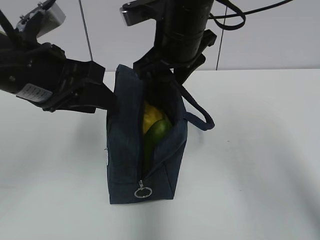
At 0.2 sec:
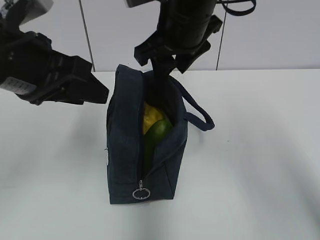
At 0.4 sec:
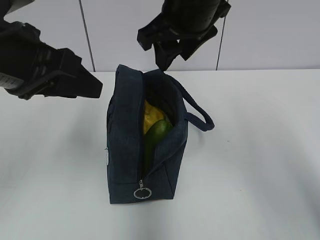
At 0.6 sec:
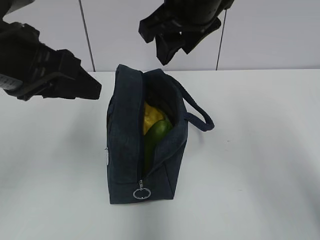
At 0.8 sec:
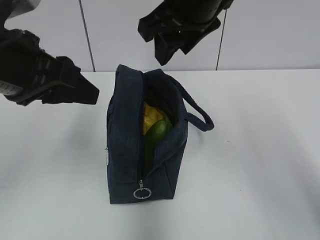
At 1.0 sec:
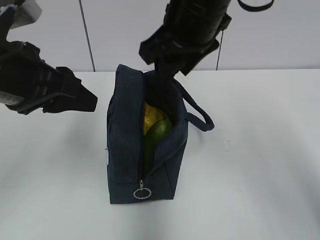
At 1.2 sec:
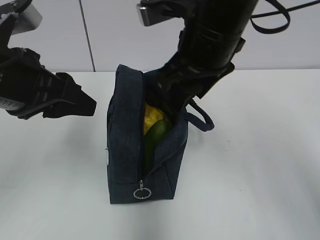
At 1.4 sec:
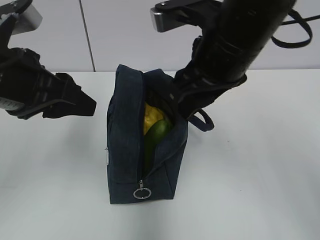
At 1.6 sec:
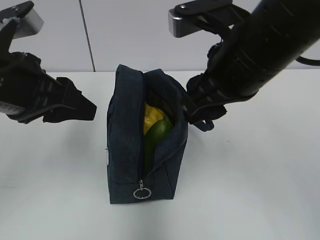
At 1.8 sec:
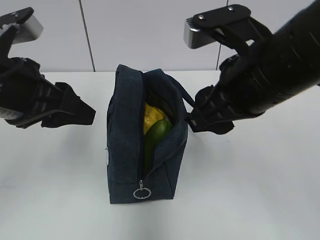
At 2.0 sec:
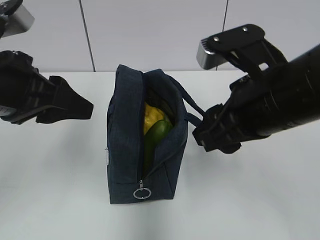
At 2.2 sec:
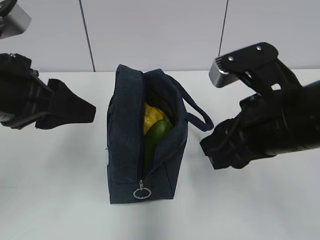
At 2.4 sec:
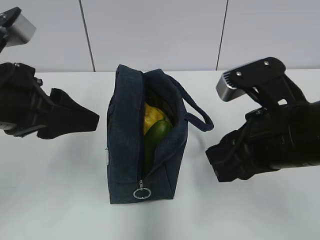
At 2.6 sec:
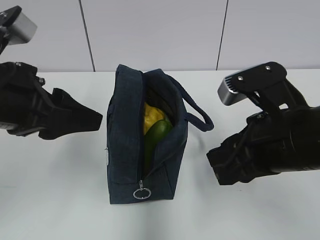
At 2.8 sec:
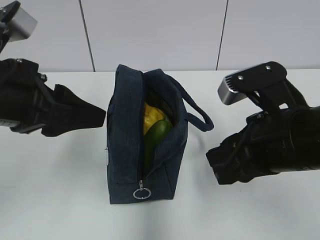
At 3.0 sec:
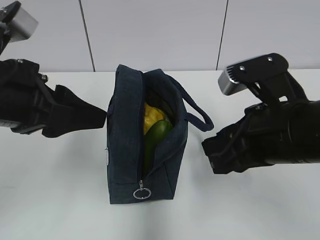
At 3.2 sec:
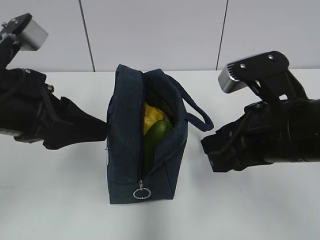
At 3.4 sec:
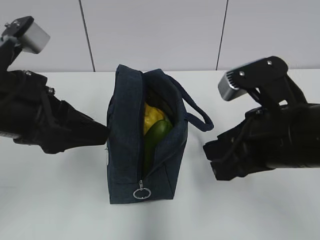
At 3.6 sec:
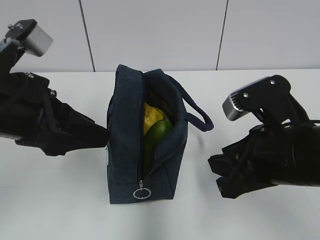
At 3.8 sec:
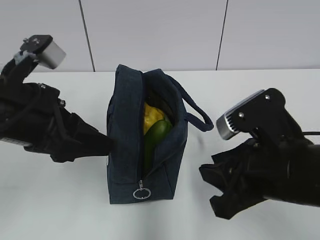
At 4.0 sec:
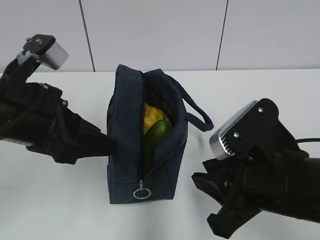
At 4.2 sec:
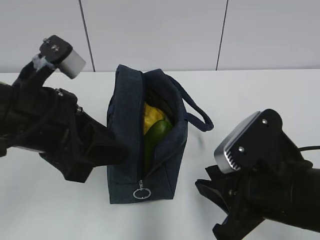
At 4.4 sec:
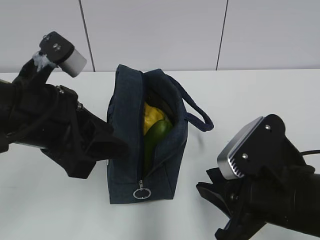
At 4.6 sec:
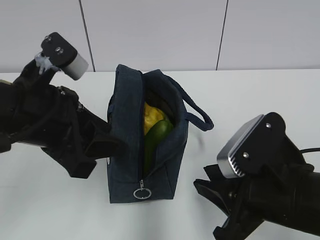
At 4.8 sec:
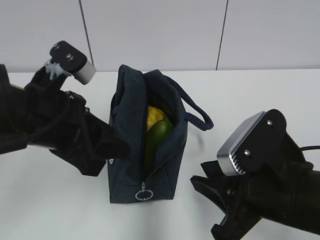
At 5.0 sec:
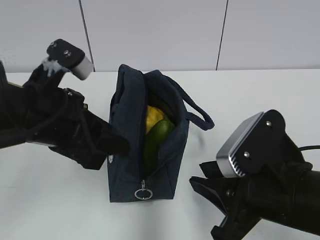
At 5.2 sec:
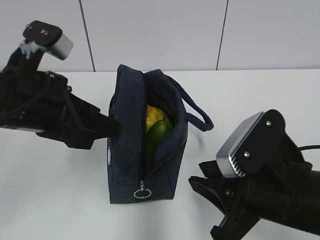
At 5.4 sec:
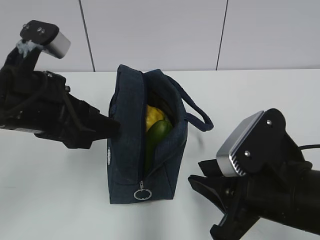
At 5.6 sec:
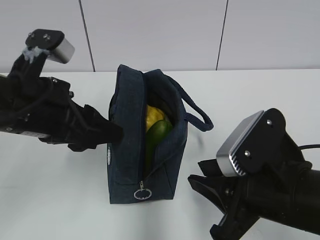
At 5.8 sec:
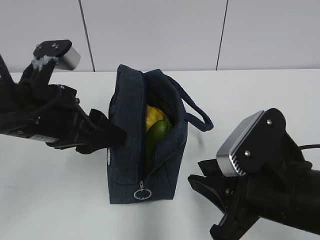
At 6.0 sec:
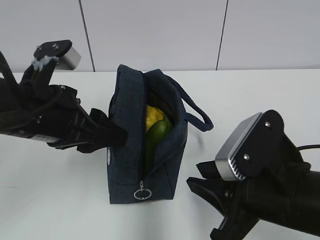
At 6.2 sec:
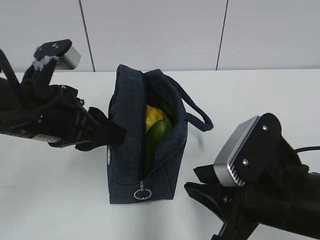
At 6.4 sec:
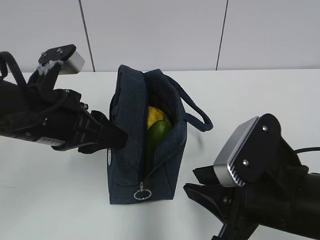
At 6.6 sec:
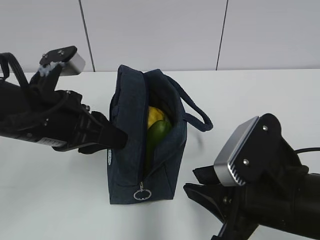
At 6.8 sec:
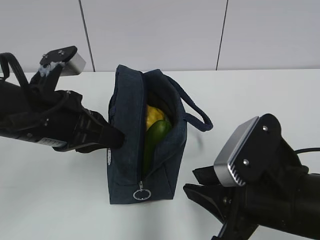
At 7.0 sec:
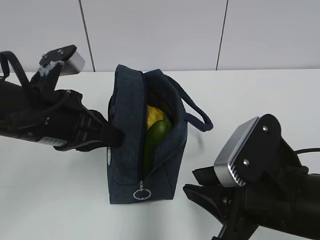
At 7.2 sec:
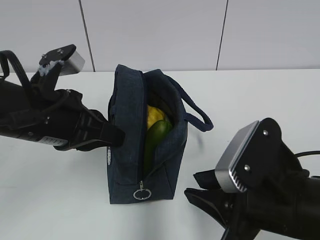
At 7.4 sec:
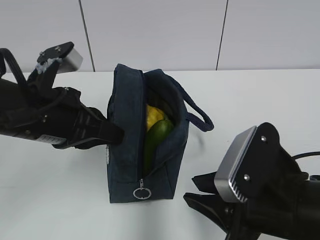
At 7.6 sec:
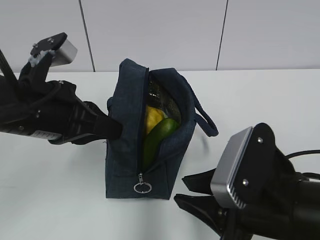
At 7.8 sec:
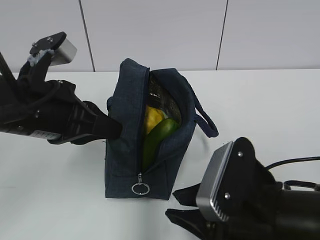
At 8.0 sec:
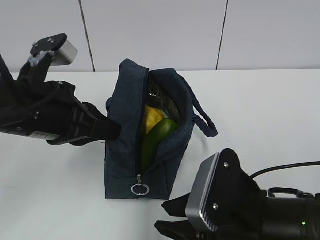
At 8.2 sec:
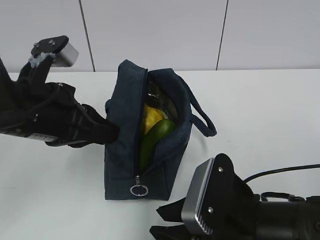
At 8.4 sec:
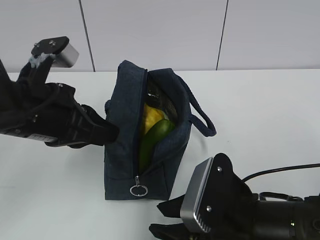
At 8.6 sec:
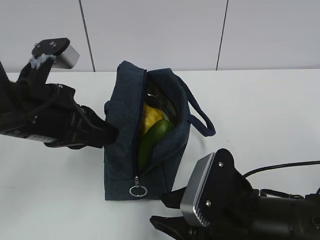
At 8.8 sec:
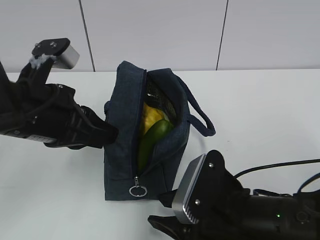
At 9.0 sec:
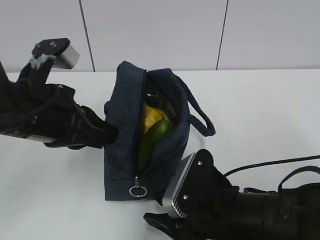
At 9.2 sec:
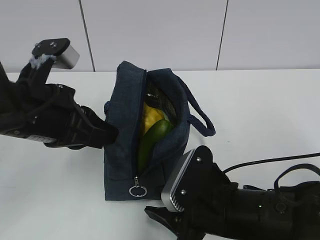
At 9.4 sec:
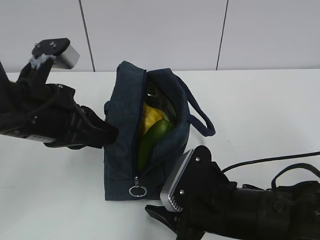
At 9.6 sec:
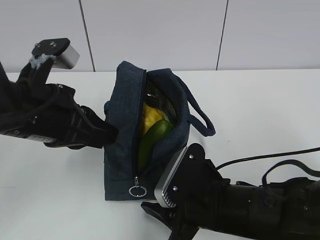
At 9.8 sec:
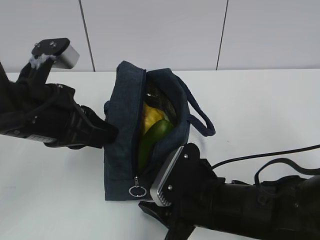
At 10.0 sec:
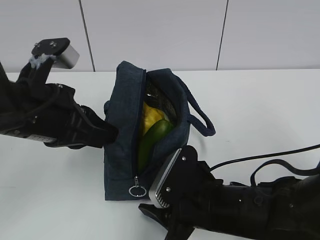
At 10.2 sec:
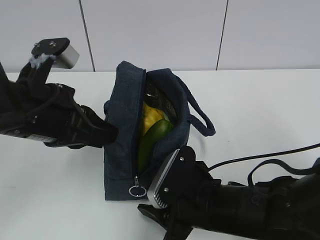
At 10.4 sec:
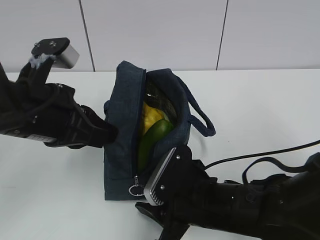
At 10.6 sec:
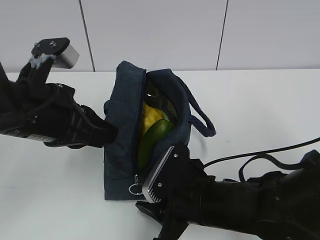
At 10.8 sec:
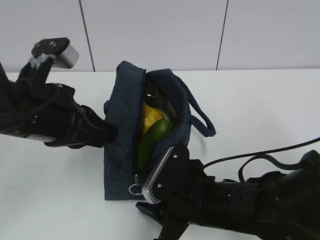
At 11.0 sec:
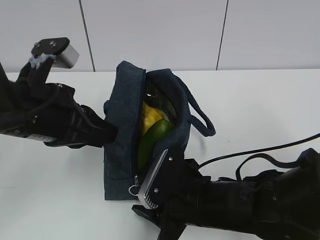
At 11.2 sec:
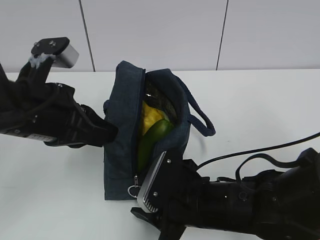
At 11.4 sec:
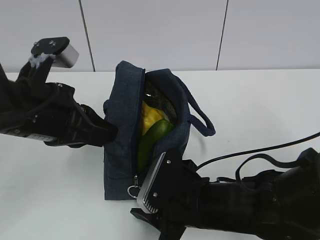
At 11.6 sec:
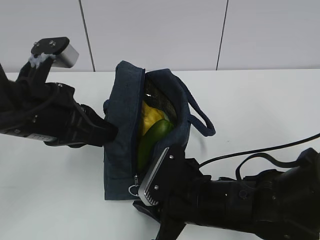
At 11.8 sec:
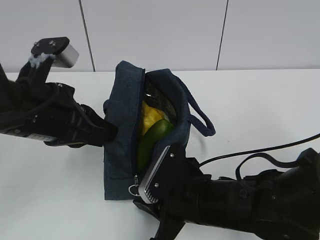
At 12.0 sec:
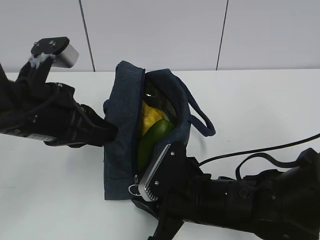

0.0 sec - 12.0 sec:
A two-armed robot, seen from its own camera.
0.0 sec - 1.6 sec: The right gripper shifts some 10 cm backward and to the right.
1.6 sec - 3.0 sec: The right gripper moves downward and backward, roughly 10 cm.
3.0 sec - 4.4 sec: The right gripper is displaced downward by roughly 5 cm.
4.4 sec - 6.0 sec: The grippers make only small movements.
6.0 sec - 7.6 sec: The left gripper closes its fingers.
7.6 sec - 9.0 sec: The right gripper heads downward, covering roughly 5 cm.
9.0 sec - 12.0 sec: The grippers stay close to where they were, moving slightly.

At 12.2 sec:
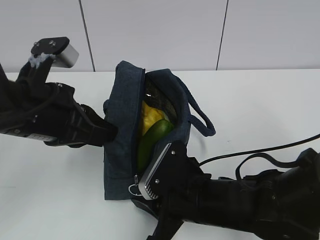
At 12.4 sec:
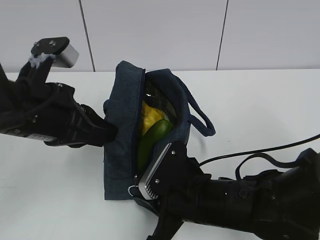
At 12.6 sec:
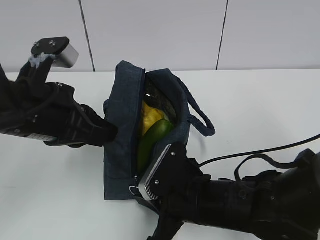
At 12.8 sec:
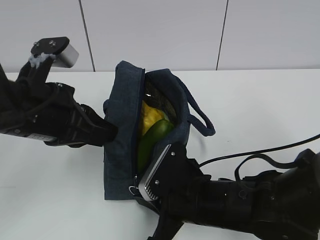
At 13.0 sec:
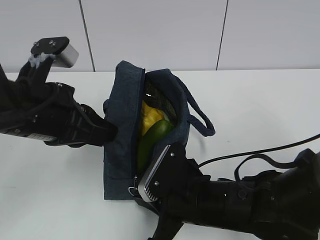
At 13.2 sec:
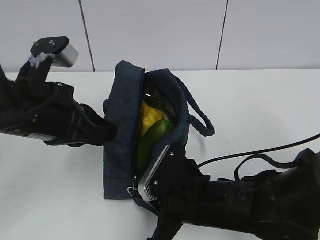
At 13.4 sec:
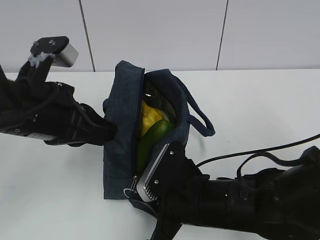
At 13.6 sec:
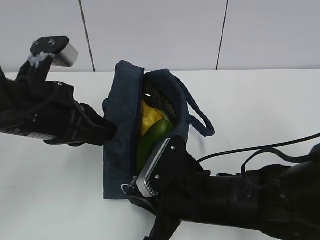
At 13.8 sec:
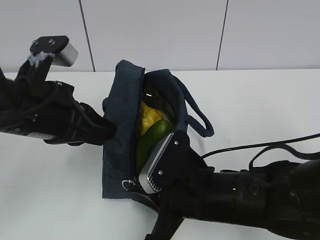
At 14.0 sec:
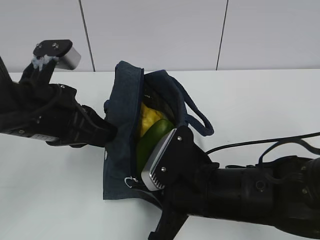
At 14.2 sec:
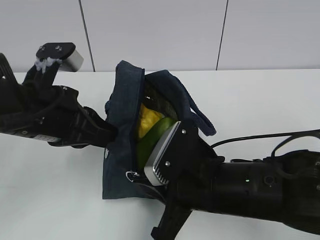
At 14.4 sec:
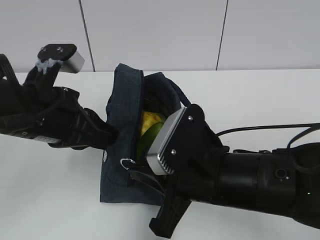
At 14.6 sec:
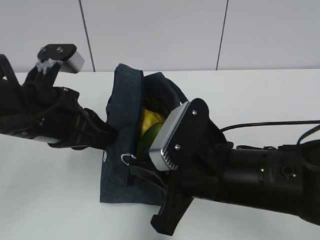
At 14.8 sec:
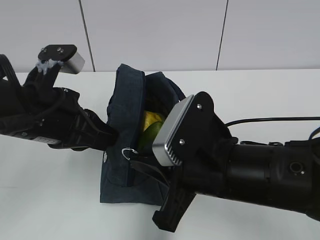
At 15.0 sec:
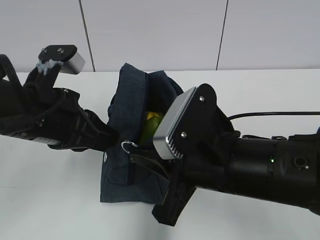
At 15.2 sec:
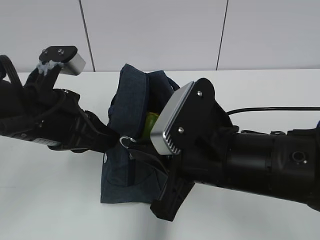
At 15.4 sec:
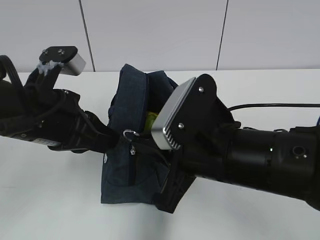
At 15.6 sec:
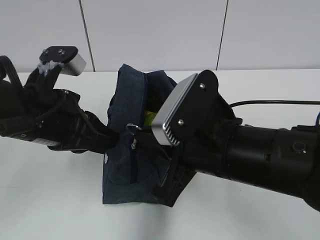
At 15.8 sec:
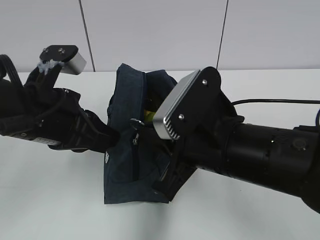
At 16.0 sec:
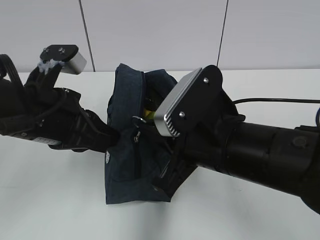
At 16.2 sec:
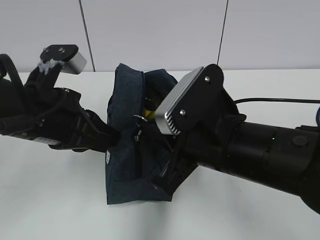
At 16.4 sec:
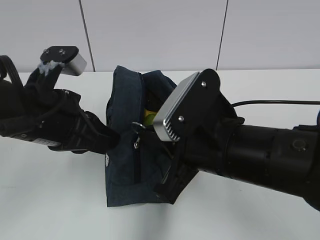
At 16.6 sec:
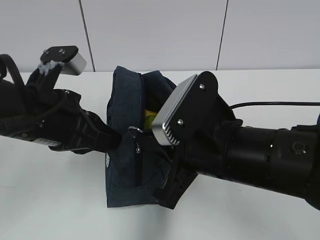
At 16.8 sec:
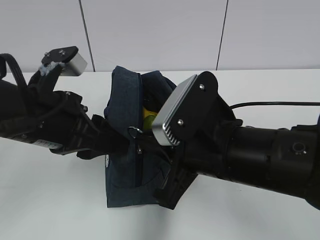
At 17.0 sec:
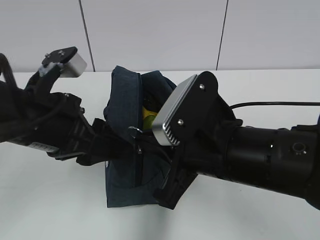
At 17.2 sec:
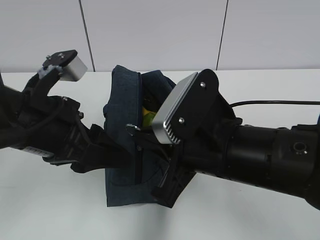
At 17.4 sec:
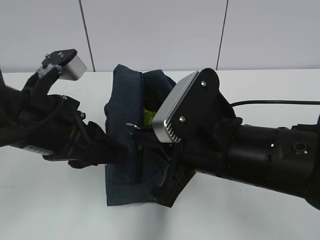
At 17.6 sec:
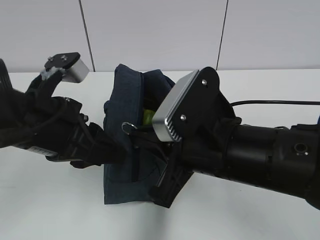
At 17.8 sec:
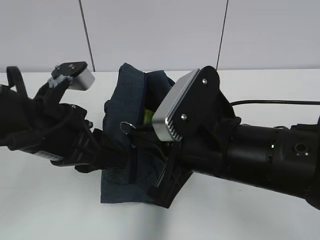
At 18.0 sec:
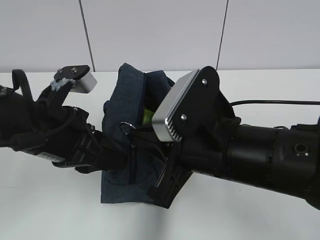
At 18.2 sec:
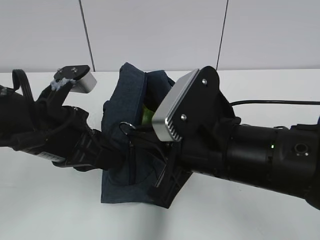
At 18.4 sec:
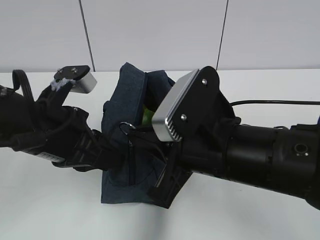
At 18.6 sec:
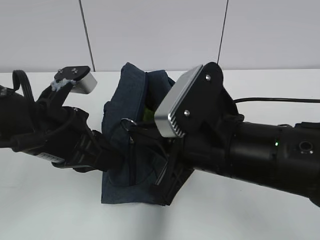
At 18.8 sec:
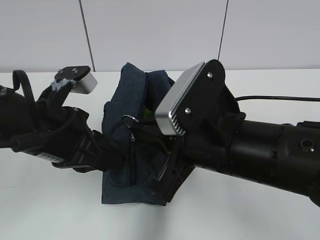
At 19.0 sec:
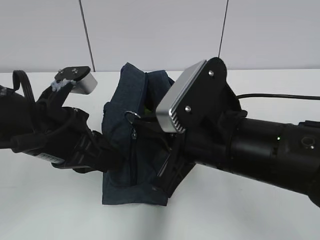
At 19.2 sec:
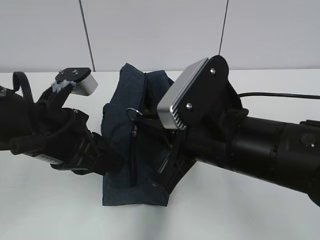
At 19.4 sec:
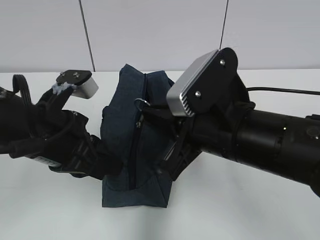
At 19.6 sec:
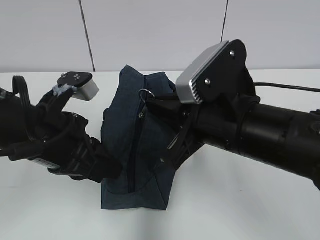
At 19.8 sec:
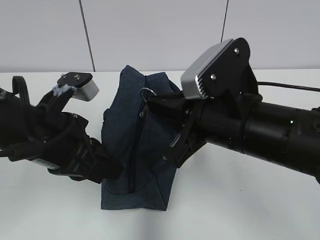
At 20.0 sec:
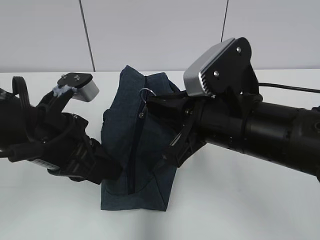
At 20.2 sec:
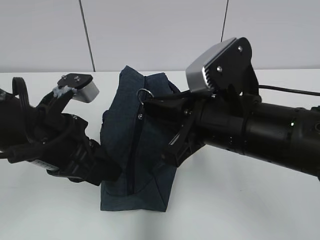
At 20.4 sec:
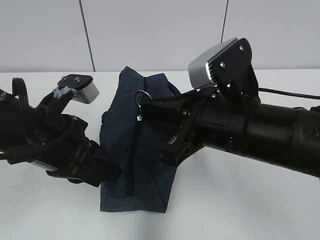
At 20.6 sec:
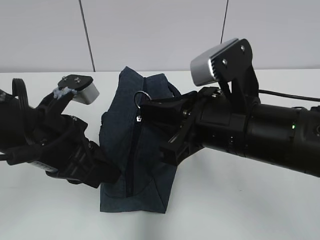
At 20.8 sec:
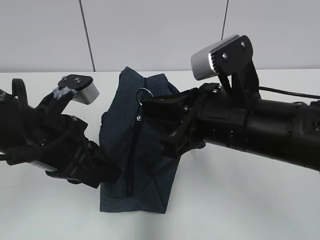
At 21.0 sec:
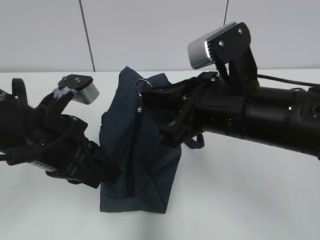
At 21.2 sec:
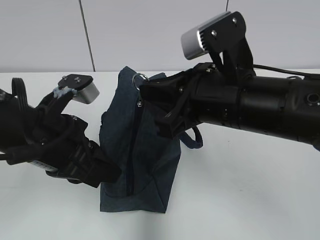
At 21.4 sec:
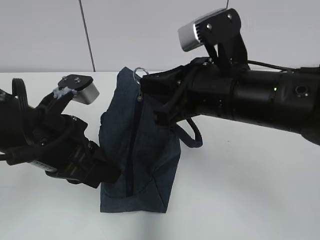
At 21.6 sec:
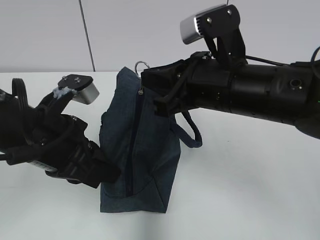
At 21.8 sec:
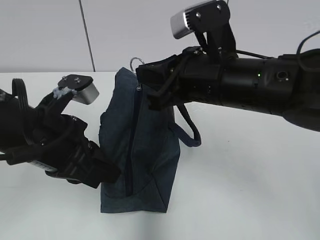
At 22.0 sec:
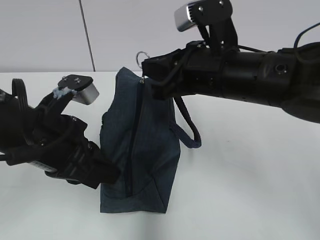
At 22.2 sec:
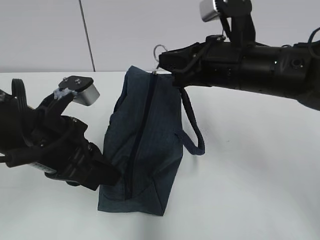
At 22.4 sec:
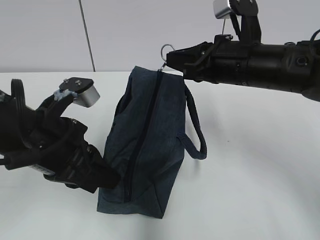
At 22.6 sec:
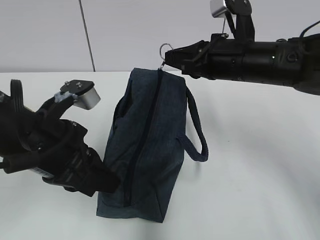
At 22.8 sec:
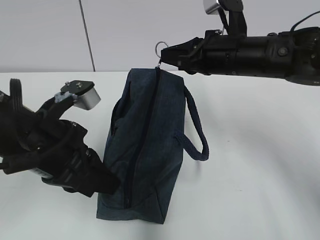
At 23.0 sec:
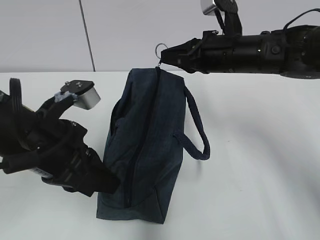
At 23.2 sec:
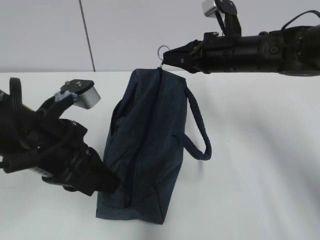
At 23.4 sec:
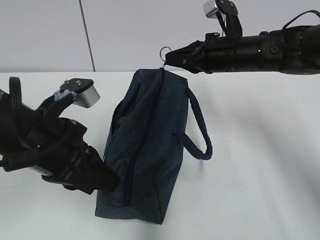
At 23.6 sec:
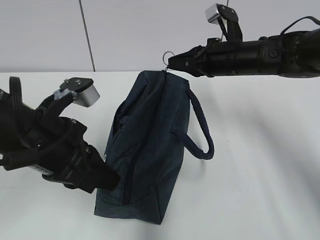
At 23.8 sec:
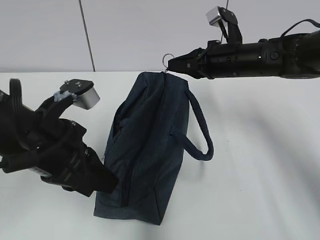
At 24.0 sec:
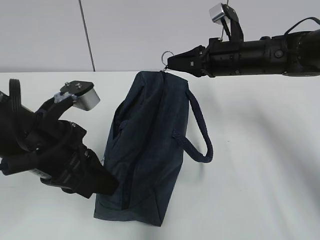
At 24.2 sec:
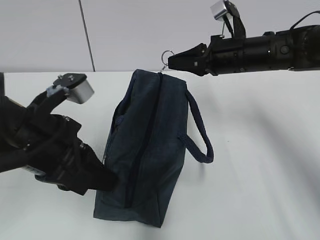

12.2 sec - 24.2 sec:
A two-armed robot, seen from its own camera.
12.2 sec - 13.8 sec: The right gripper closes its fingers.
13.8 sec - 15.2 sec: The right gripper travels upward by some 10 cm.
15.2 sec - 16.6 sec: The grippers stay close to where they were, moving slightly.
16.6 sec - 18.2 sec: The left gripper opens, then closes once more.
19.8 sec - 21.2 sec: There are only small adjustments of the grippers.
21.2 sec - 22.6 sec: The right gripper is displaced forward and to the right by roughly 10 cm.
22.6 sec - 24.2 sec: The right gripper travels forward by about 5 cm.
